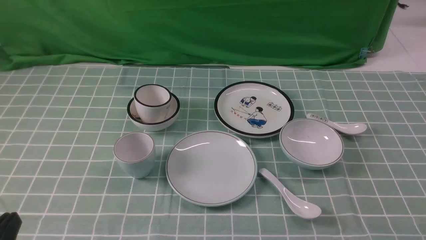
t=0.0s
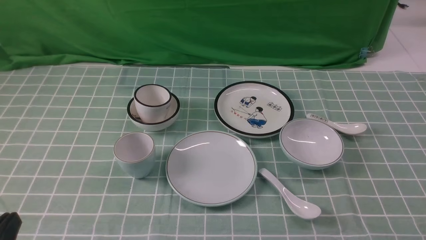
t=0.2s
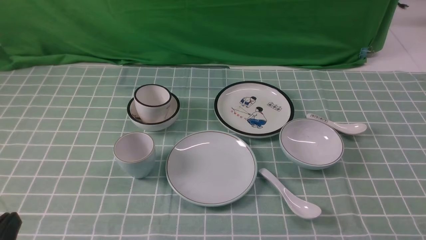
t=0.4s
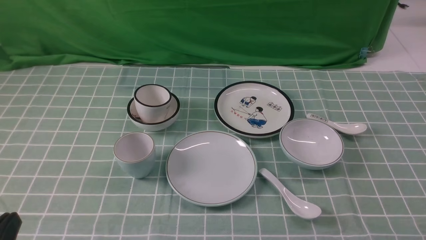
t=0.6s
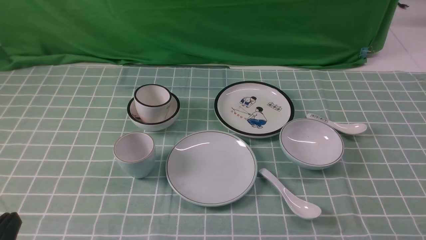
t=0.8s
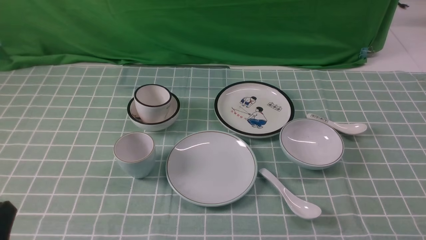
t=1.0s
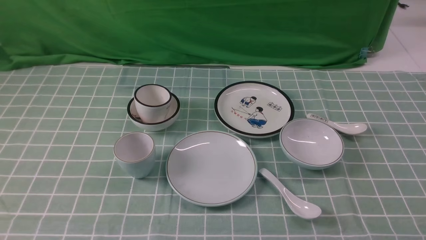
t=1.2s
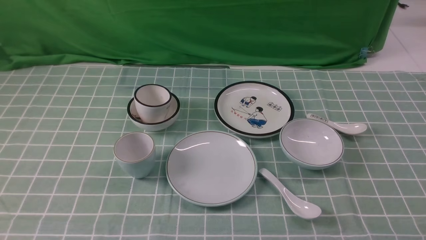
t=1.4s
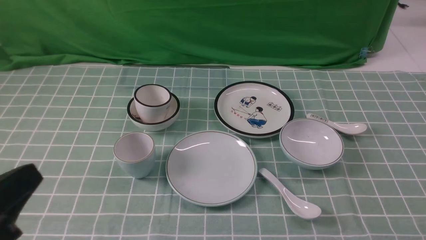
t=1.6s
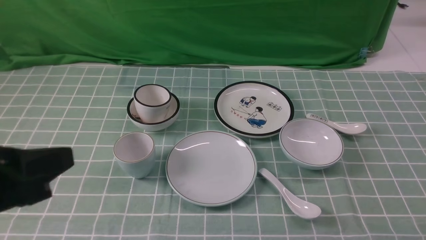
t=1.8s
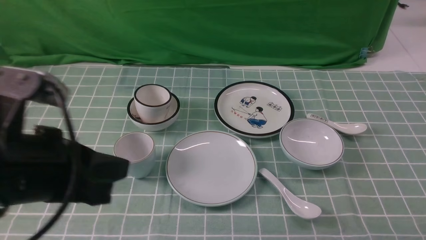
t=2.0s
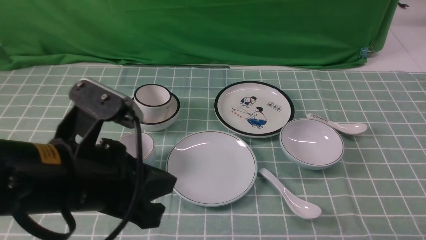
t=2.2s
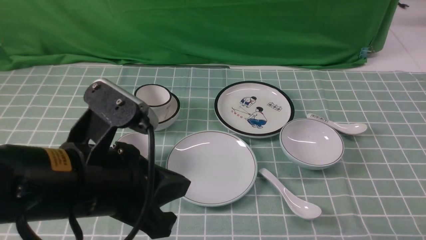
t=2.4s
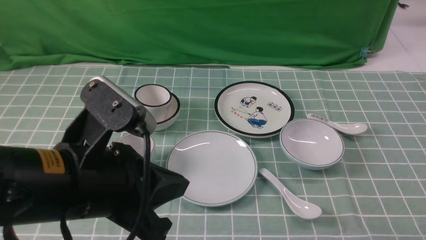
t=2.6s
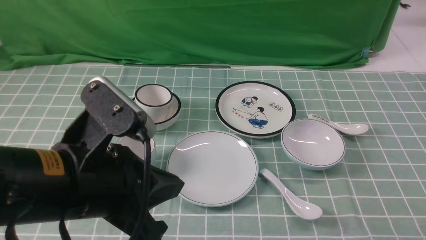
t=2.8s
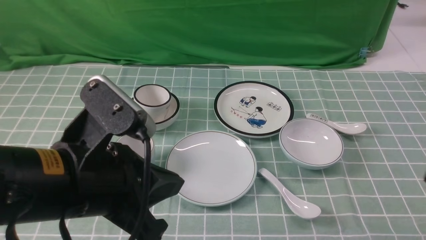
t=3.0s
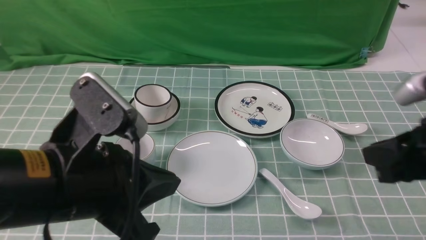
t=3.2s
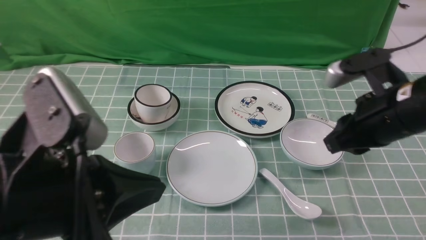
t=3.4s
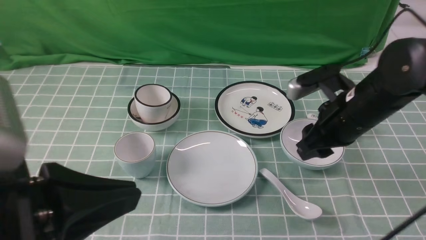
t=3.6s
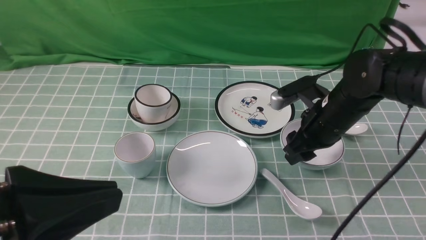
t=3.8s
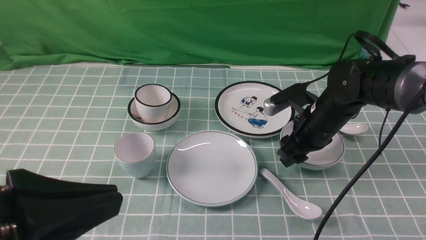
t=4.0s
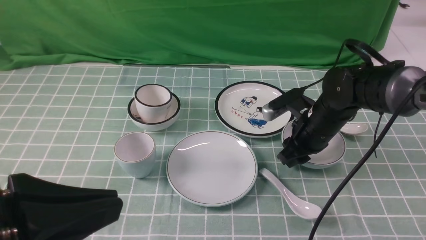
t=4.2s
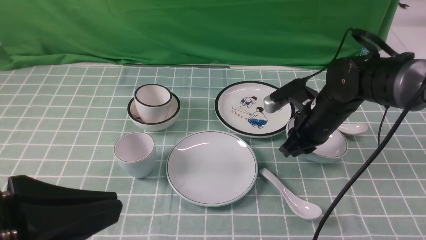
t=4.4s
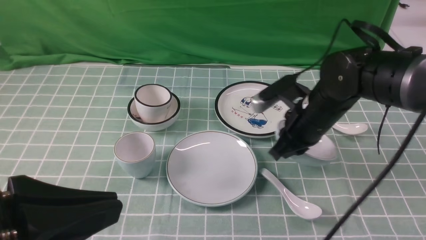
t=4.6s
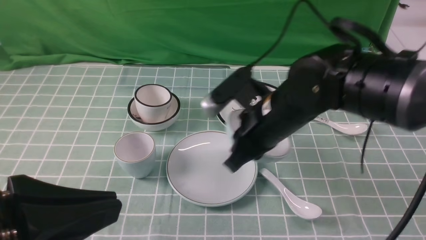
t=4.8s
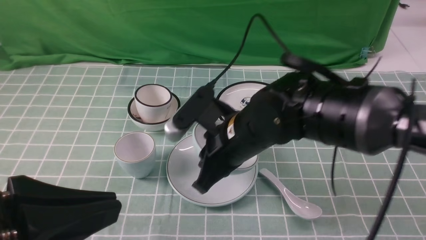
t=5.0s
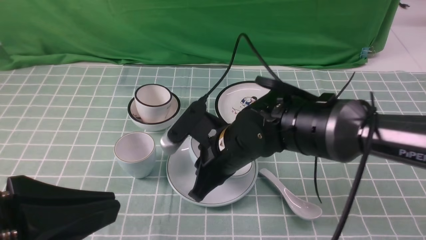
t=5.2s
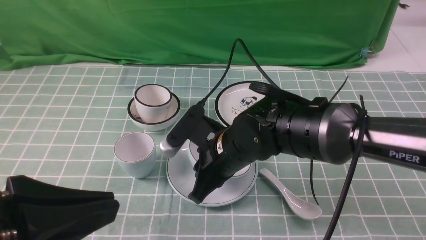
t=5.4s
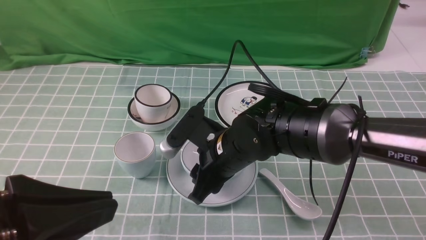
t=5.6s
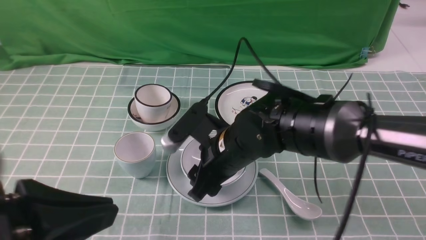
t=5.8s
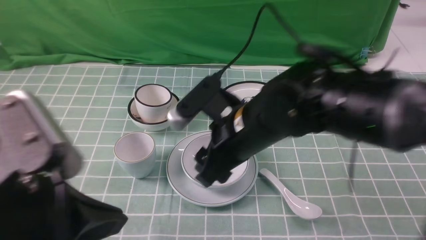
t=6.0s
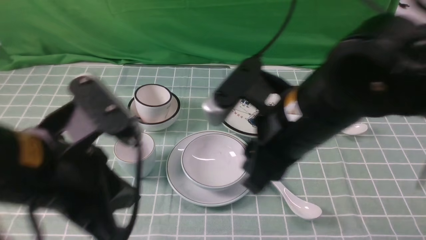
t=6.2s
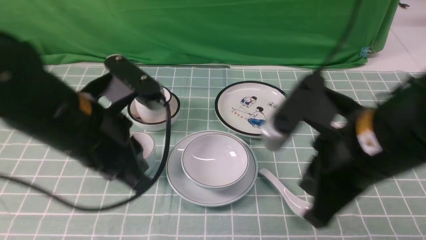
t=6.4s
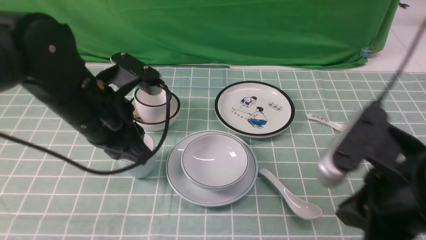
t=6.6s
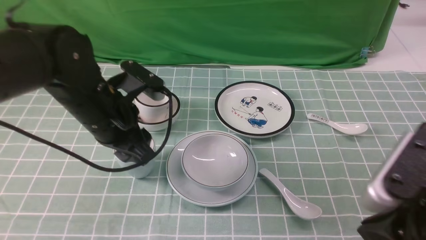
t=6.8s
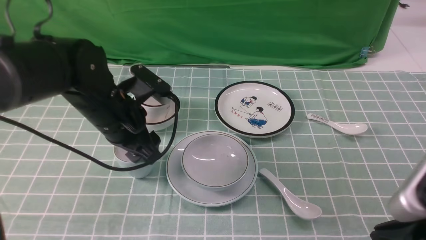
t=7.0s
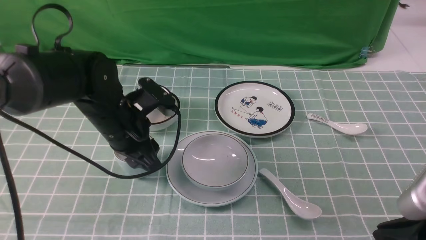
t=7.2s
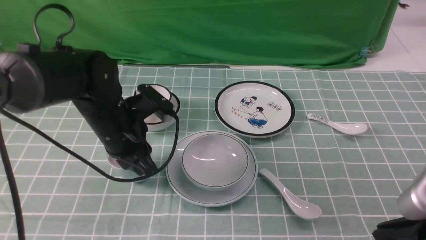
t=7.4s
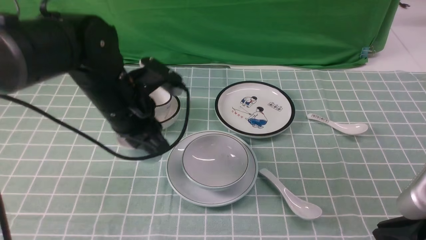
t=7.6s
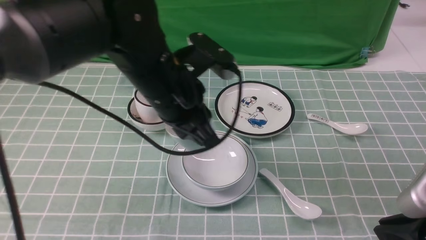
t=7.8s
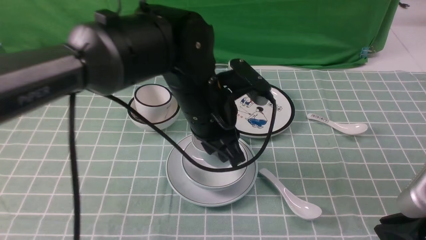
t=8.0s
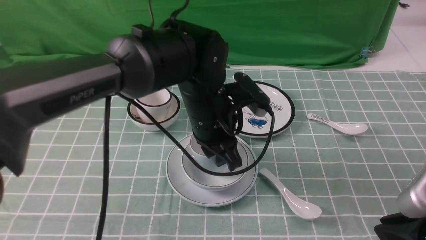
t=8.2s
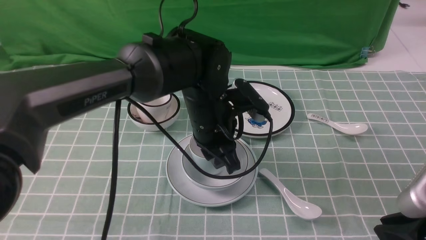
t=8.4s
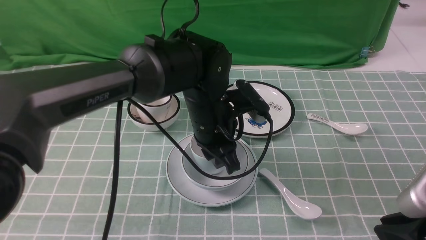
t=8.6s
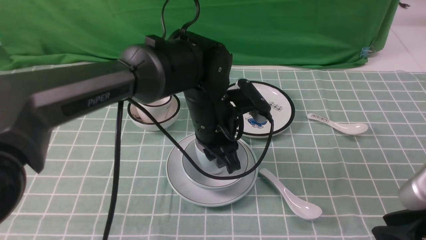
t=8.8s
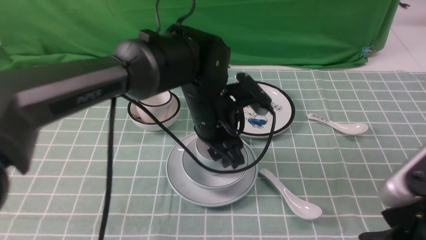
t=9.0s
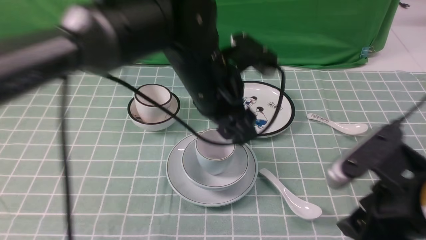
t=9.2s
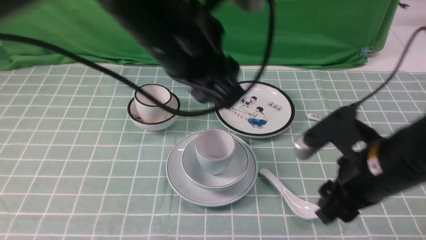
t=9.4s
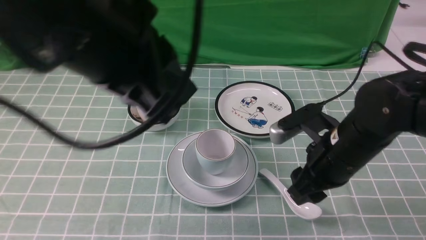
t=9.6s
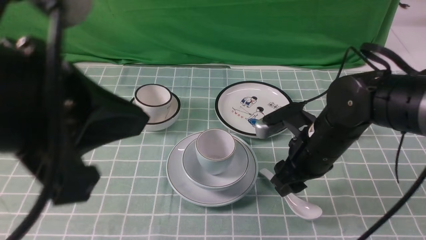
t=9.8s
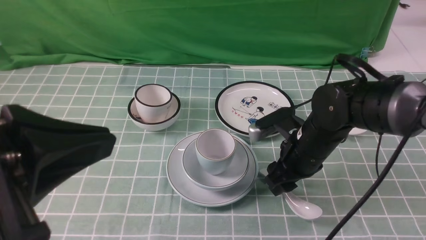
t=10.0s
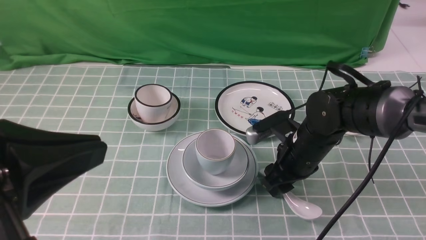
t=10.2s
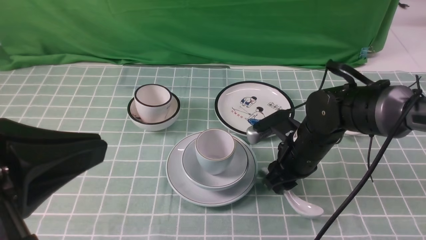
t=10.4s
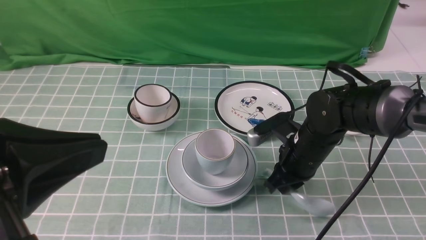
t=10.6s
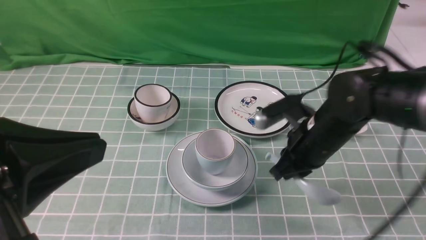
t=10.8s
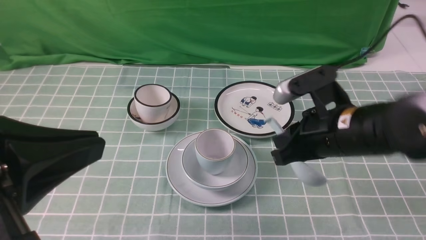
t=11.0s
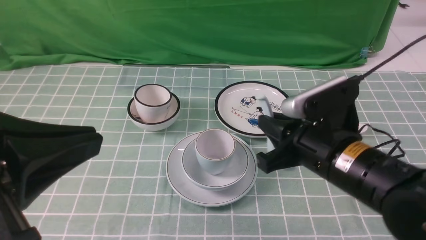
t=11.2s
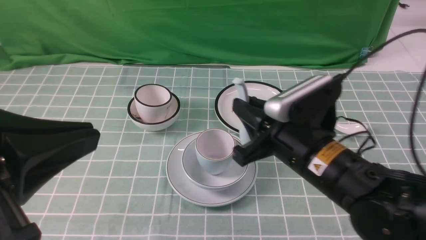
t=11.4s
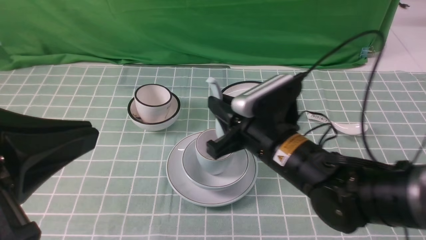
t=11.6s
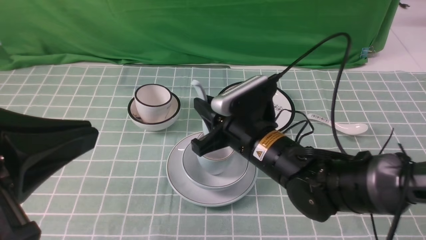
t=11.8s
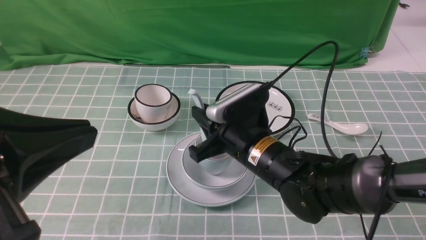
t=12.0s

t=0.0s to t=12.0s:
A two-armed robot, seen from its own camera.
Task of the whole recording: place the bowls on the plates on the blue tablecloth, put the cups on the bowls, and place the spoons in the cups.
Step, t=0.0s to t=4.2s: Grasp the bowl with the right gripper.
Step, t=4.4s to t=5.8s: Place the bowl on the plate with the right gripper.
Step, t=6.0s to t=7.2s: Grasp the cup with the left gripper.
Step, t=7.4s to t=8.8s: Place the cup on the bowl with the left gripper.
Step, t=9.0s to t=10.4s: Grasp the spoon with the right gripper.
t=0.0s to t=1.6s: The left gripper is displaced upward by approximately 10 cm.
t=1.6s to t=3.0s: The right gripper shifts some 15 cm upward and forward, while the left gripper heads to the right and forward, covering some 15 cm.
t=3.0s to t=4.4s: The right gripper goes some 30 cm forward, to the left and downward, and opens and closes again, while the left gripper moves backward and to the left, roughly 10 cm.
t=4.4s to t=6.0s: The right gripper heads backward, to the left and upward, covering some 20 cm, and opens its fingers; the left gripper is displaced forward by approximately 5 cm.
t=6.0s to t=7.6s: The right gripper shifts some 25 cm to the right and backward, and closes up. The left gripper moves forward, some 20 cm, and opens, then closes once more.
t=7.6s to t=9.0s: The left gripper moves to the right, about 10 cm, and opens up. Meanwhile the right gripper opens up.
t=9.0s to t=10.4s: The right gripper shifts approximately 25 cm forward and downward; the left gripper is displaced backward, to the left and upward by approximately 35 cm, and closes up.
t=10.4s to t=12.0s: The right gripper heads to the left and backward, covering some 10 cm, and closes.

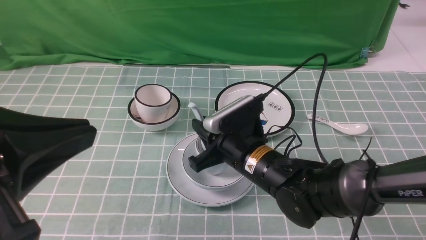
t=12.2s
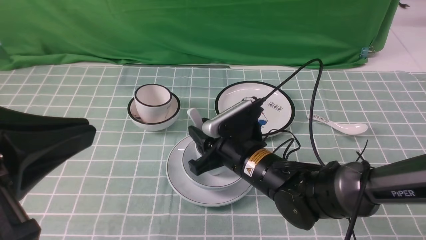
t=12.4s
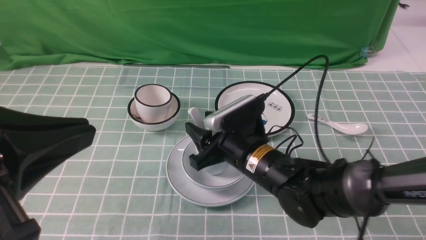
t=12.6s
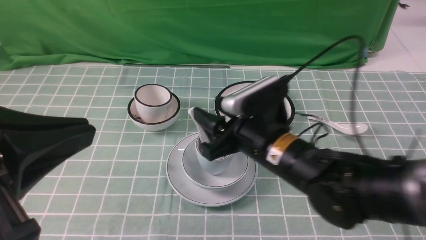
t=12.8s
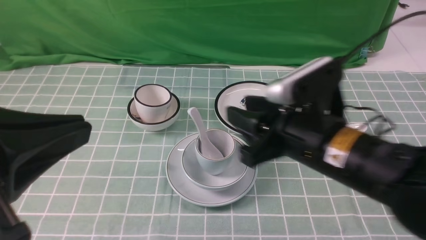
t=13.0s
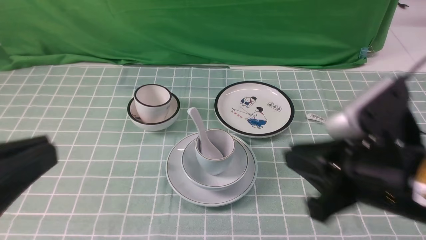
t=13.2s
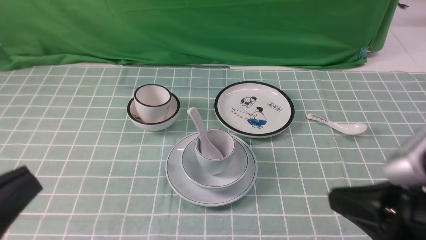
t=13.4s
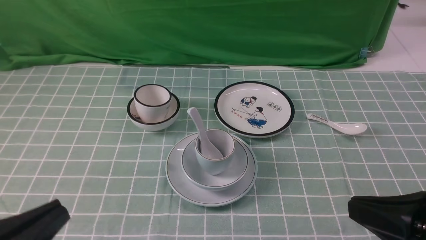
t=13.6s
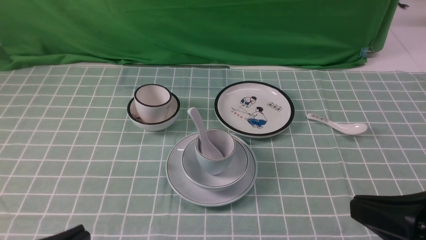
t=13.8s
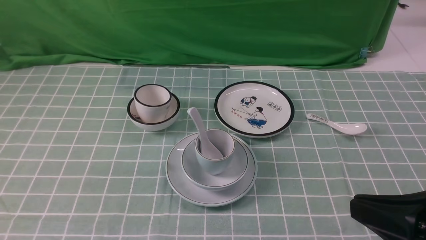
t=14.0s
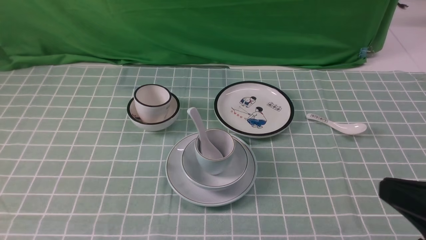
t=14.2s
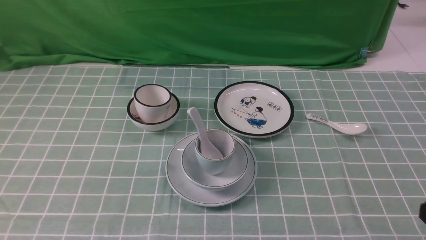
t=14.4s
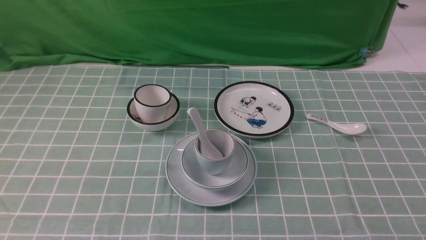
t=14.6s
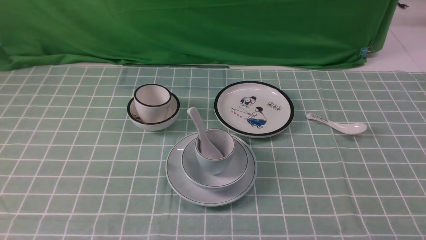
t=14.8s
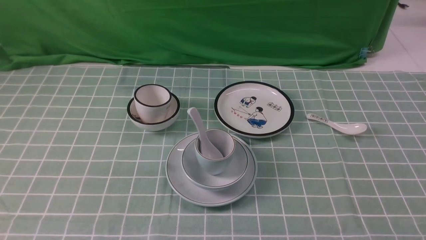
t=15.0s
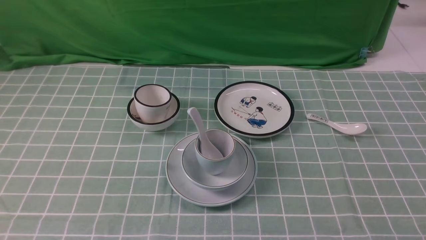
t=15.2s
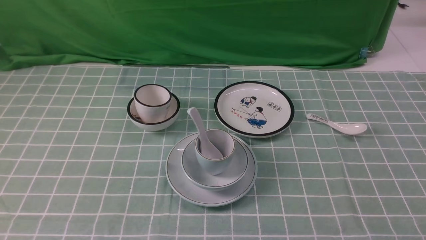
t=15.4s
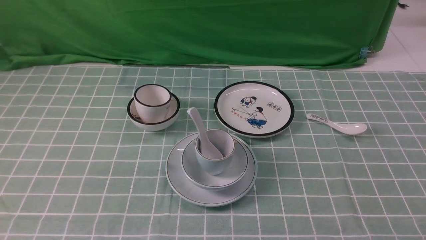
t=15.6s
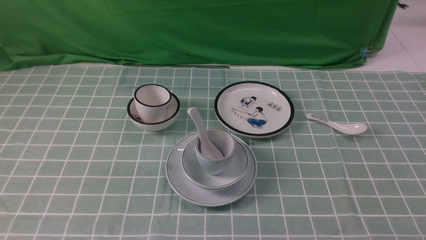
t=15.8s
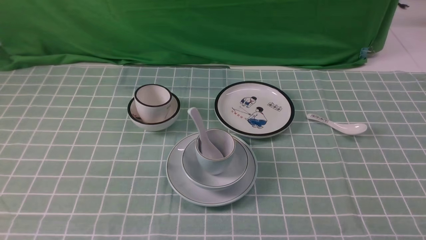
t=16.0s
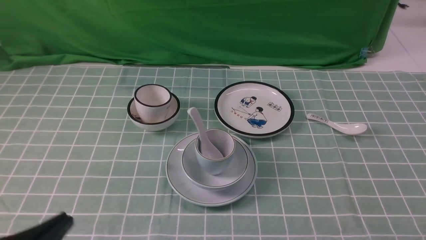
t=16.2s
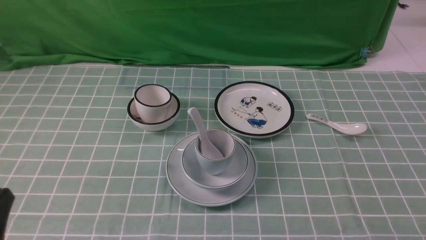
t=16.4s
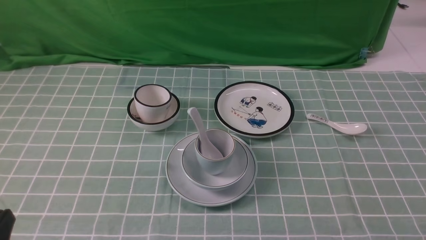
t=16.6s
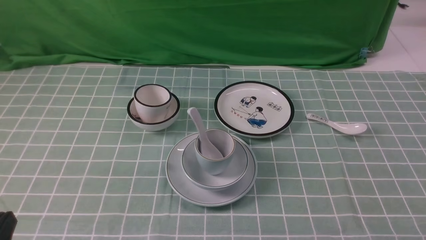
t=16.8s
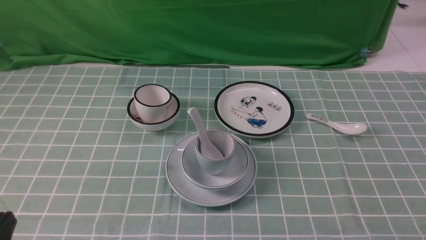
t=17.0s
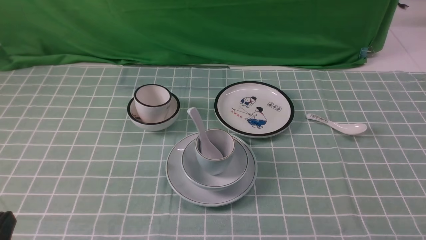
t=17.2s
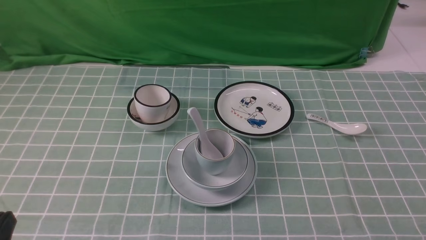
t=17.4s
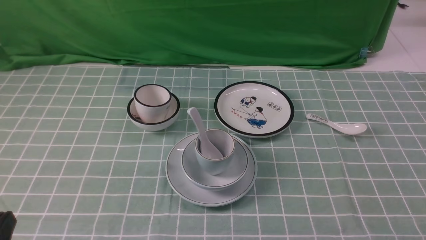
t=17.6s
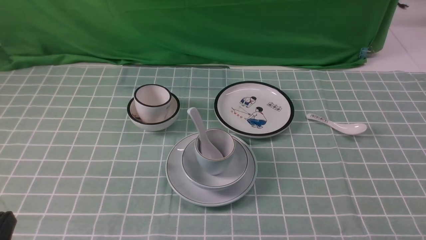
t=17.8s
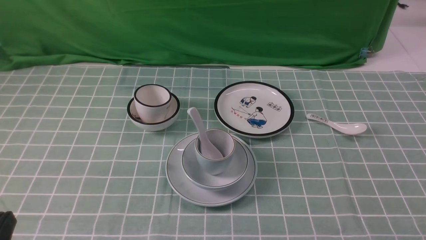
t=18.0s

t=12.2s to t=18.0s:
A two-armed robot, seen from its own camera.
Task of the whole recording: place the bowls on the plates on the blue tablecloth, put the cups on the bowls, and place the spoons in the cups.
t=12.2s to t=13.6s: The left gripper is displaced downward by about 10 cm; the right gripper shifts about 30 cm backward, to the right and upward, and opens and closes again.
t=13.6s to t=15.0s: The right gripper shifts some 15 cm downward and to the right. Meanwhile the left gripper goes about 10 cm downward.
t=16.6s to t=18.0s: The two grippers keep their place.
